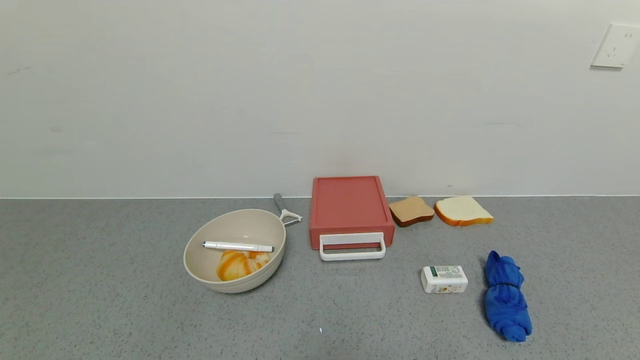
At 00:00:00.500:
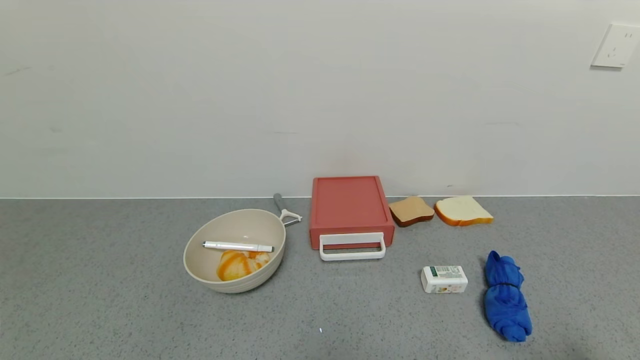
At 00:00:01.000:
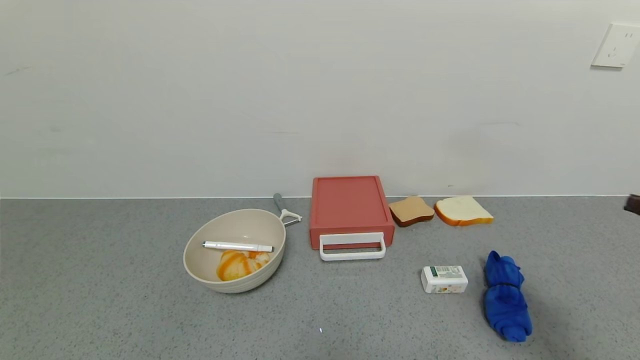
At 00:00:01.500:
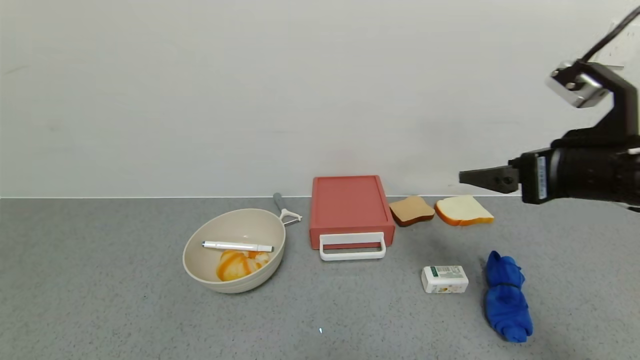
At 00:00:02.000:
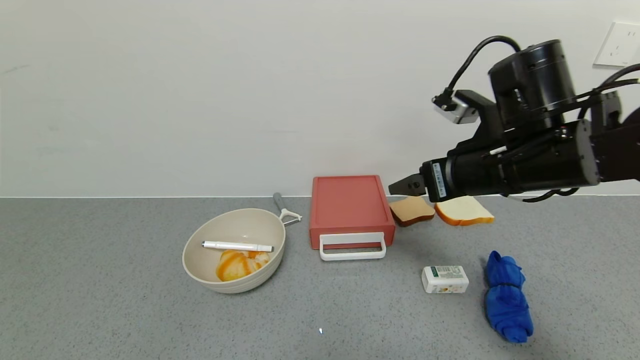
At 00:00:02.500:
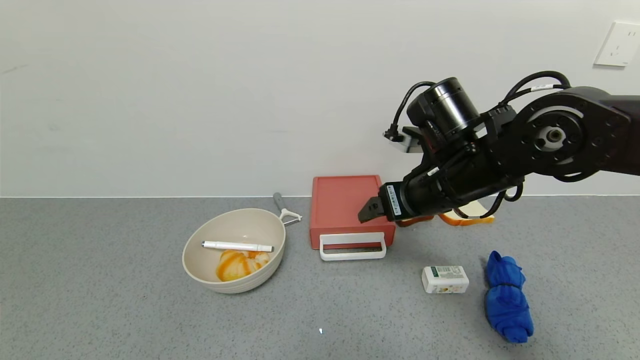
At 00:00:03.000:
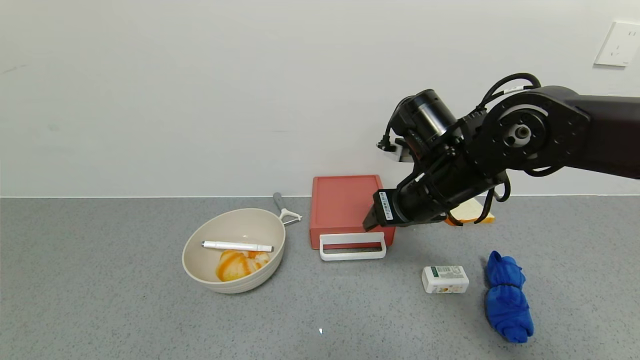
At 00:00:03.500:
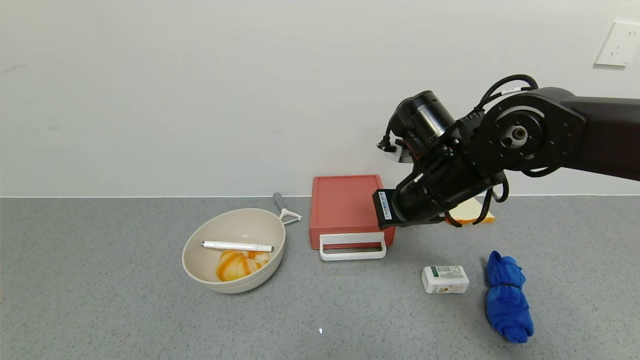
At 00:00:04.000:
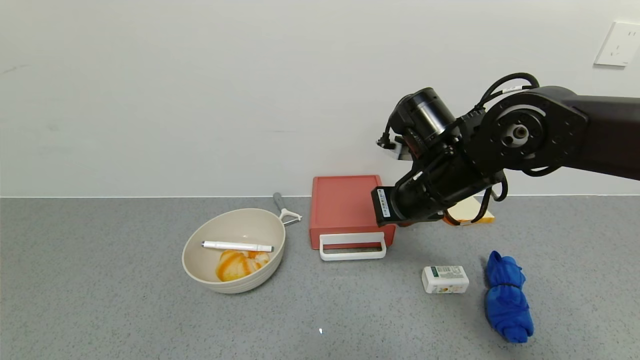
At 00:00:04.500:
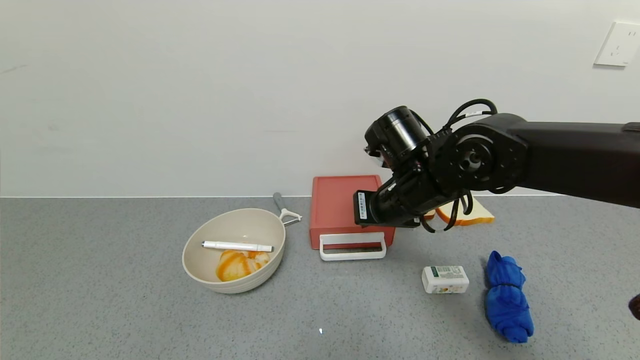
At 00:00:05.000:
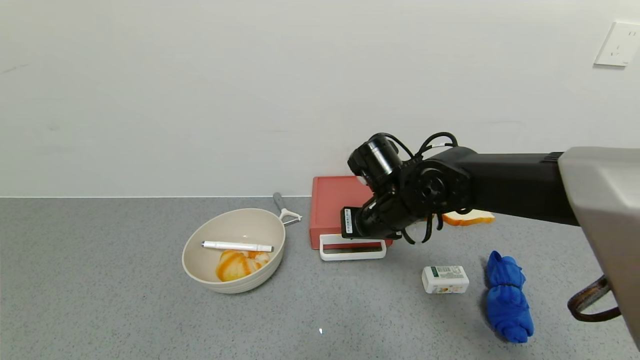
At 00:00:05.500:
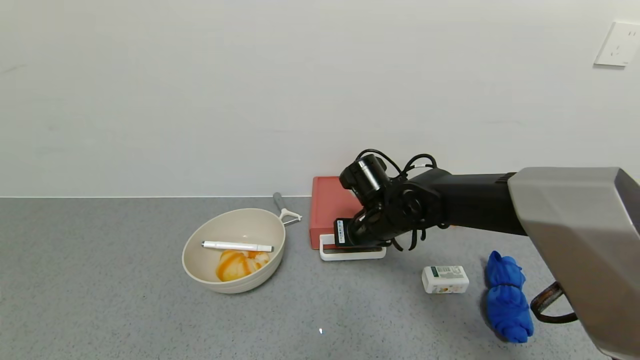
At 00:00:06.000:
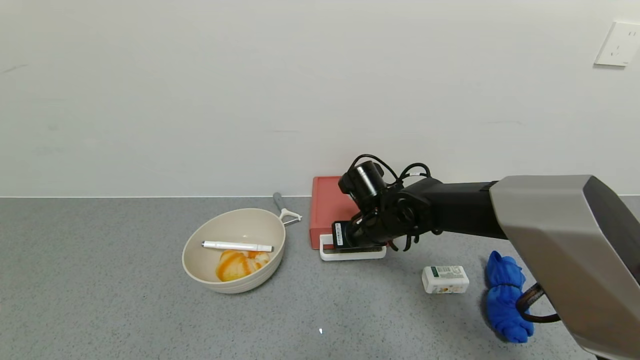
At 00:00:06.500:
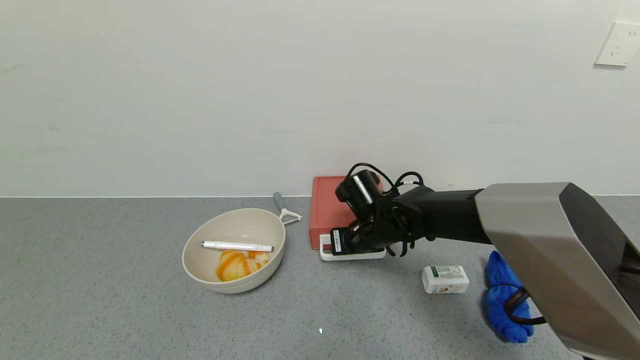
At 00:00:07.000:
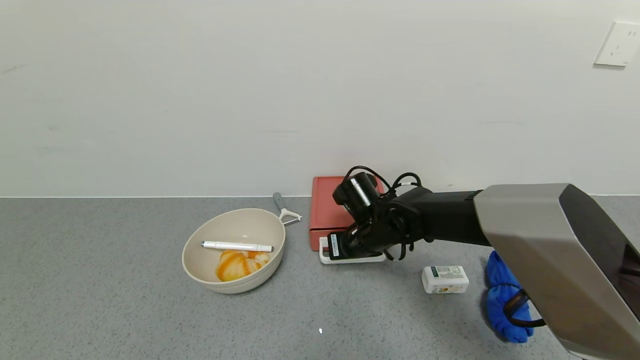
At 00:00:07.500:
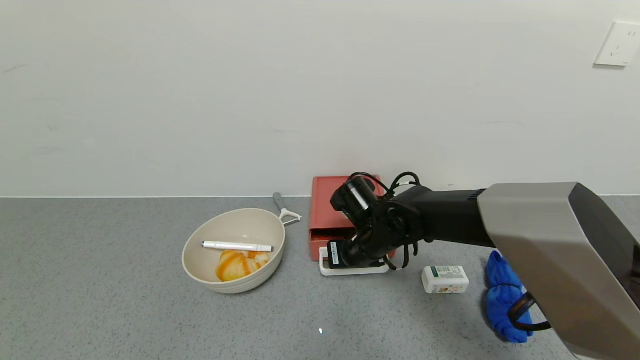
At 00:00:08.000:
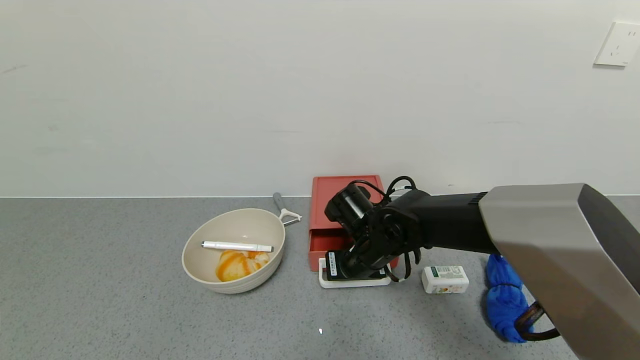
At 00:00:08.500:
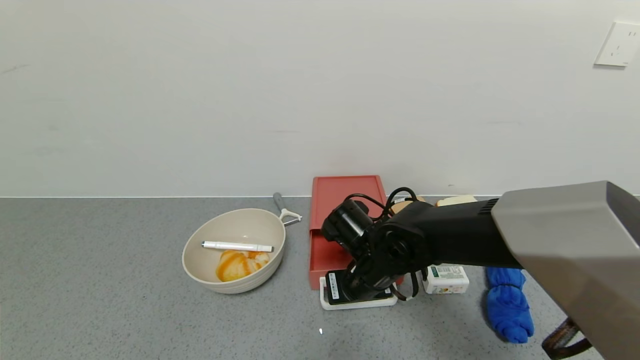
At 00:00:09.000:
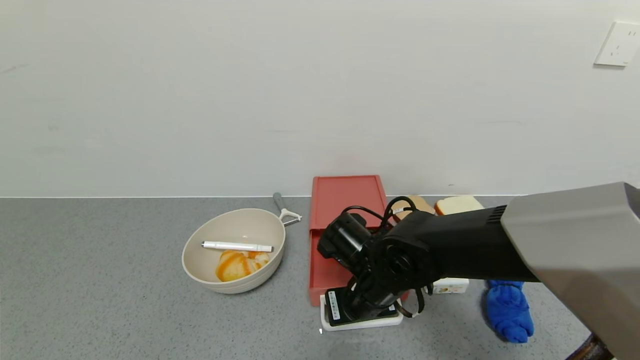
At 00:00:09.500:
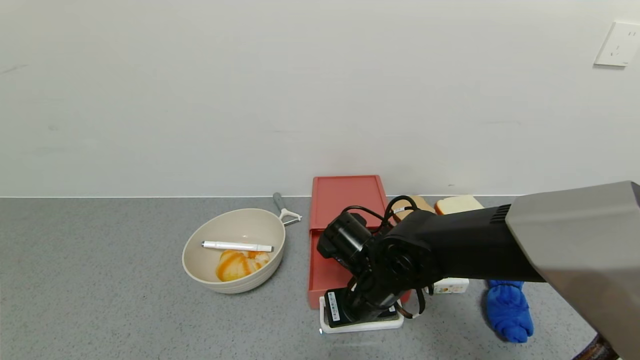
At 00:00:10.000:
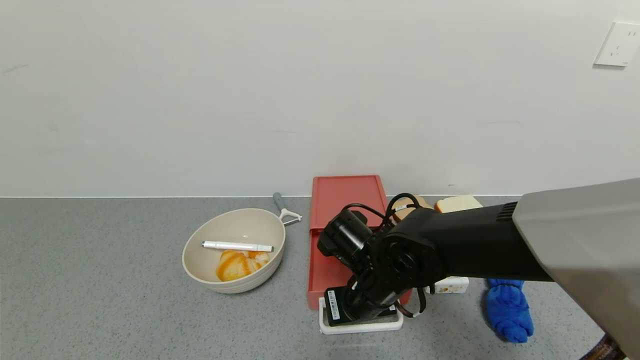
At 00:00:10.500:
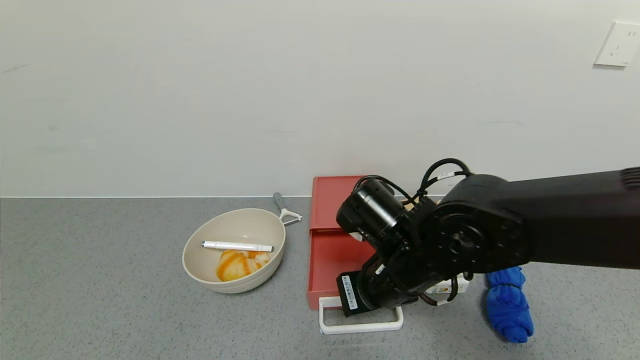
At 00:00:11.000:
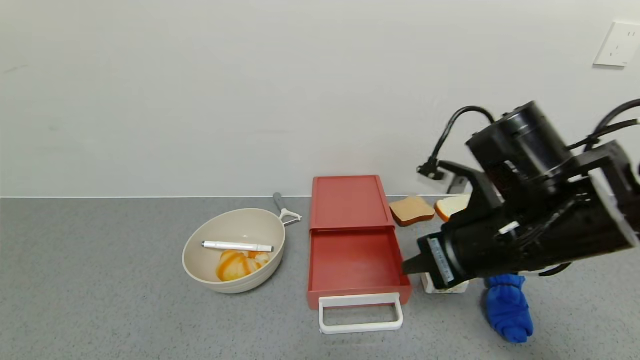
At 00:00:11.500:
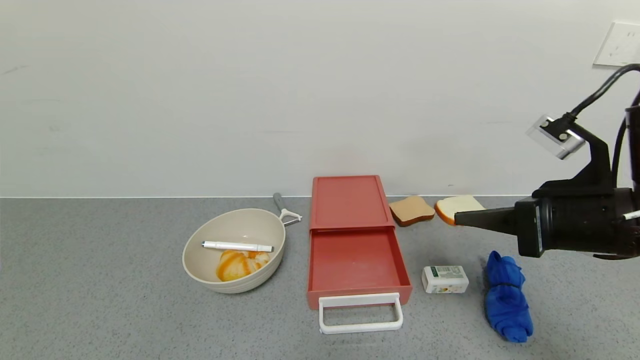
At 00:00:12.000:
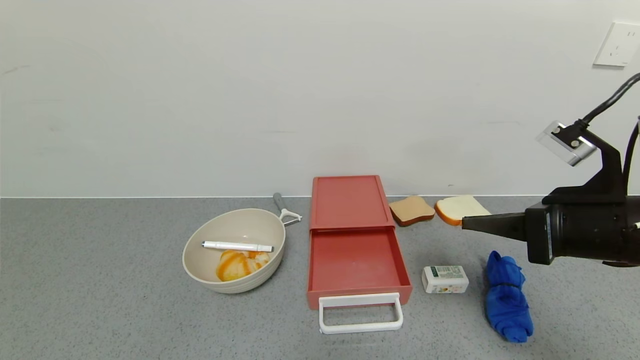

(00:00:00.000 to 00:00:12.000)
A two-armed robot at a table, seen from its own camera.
Task of the whole recording: use the gripper to open the drawer and close the red drawer.
Step, 00:00:00.000 - 00:00:11.500: Open the red drawer with right gripper.
00:00:00.000 - 00:00:02.000: The right gripper is displaced forward and to the left by about 25 cm.
00:00:02.000 - 00:00:04.000: The right gripper moves to the left, some 5 cm, and closes.
00:00:04.000 - 00:00:06.000: The right gripper travels downward, forward and to the left by roughly 15 cm.
00:00:06.000 - 00:00:08.000: The right gripper changes place by about 5 cm.
00:00:08.000 - 00:00:10.000: The right gripper goes some 5 cm backward.
00:00:10.000 - 00:00:12.000: The right gripper travels to the right and upward by some 25 cm.

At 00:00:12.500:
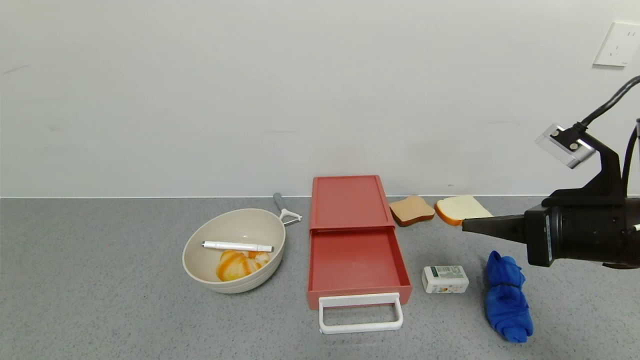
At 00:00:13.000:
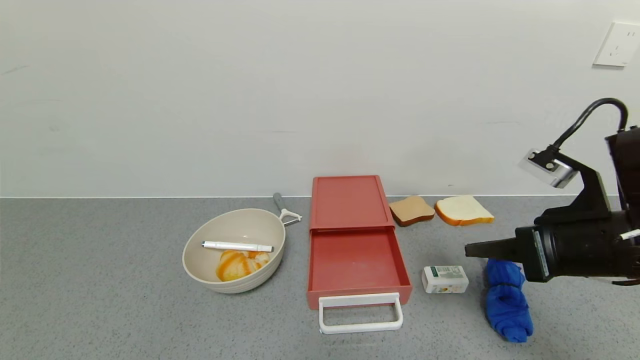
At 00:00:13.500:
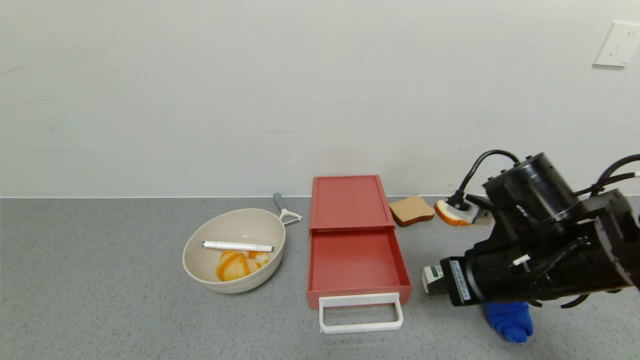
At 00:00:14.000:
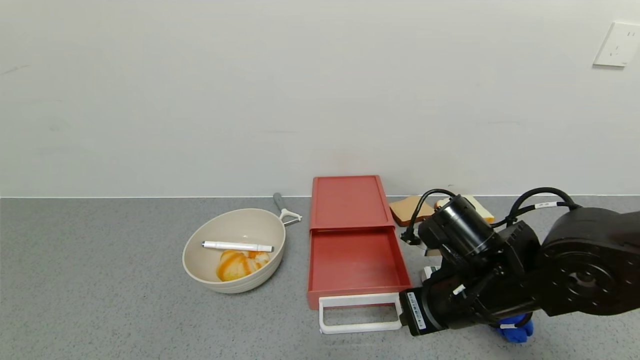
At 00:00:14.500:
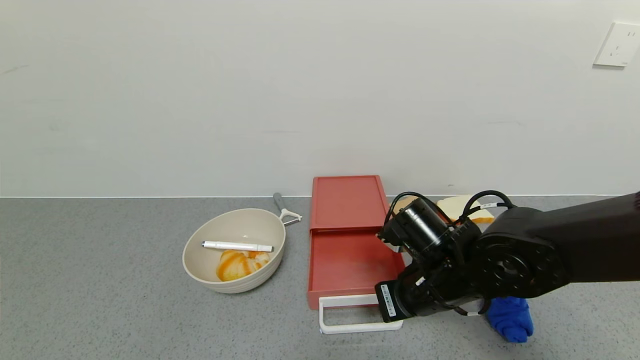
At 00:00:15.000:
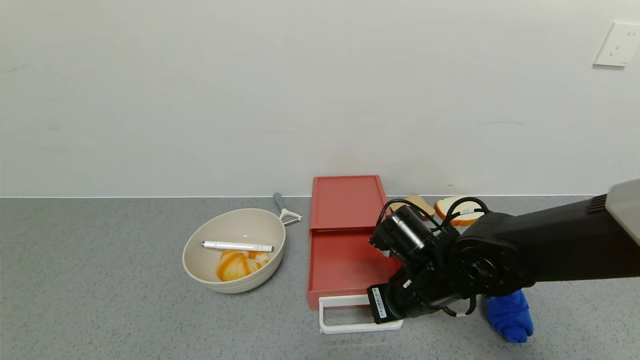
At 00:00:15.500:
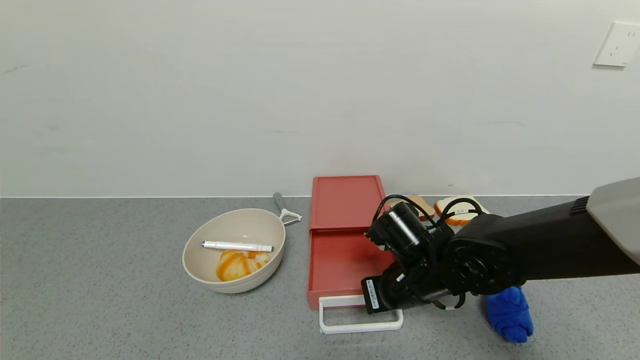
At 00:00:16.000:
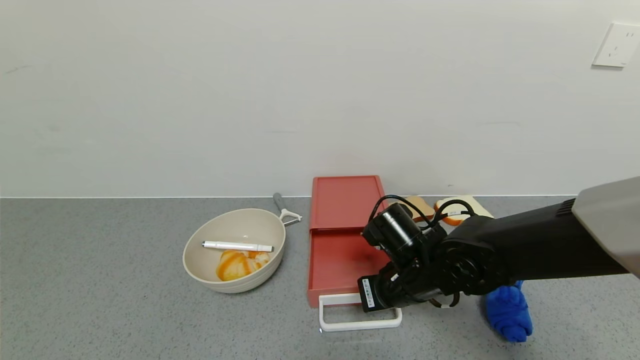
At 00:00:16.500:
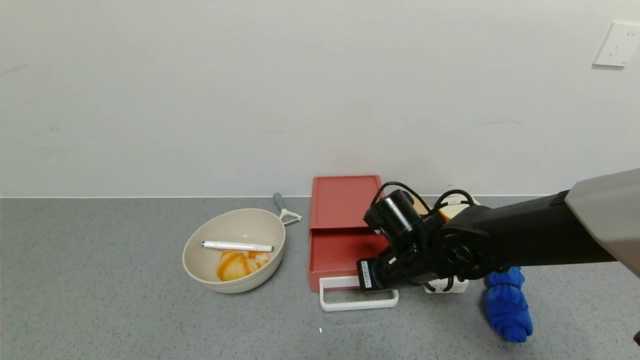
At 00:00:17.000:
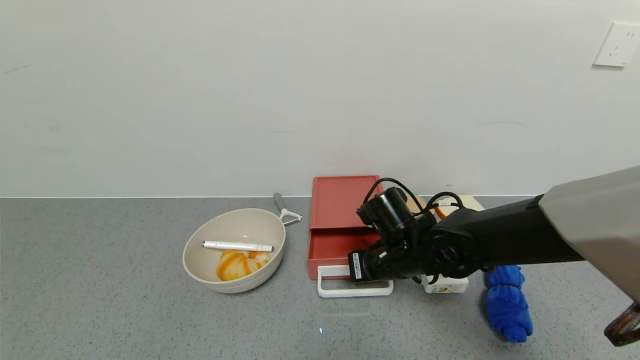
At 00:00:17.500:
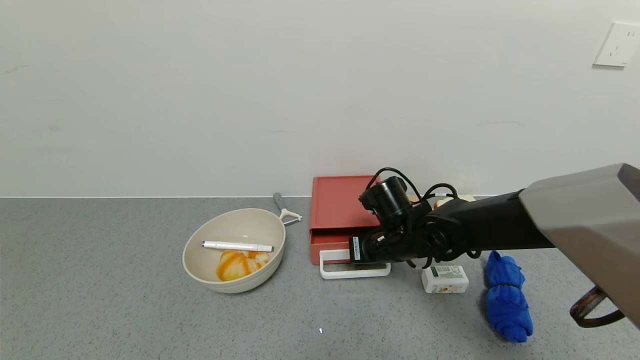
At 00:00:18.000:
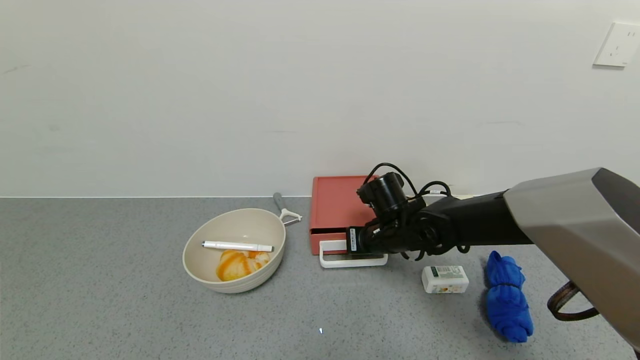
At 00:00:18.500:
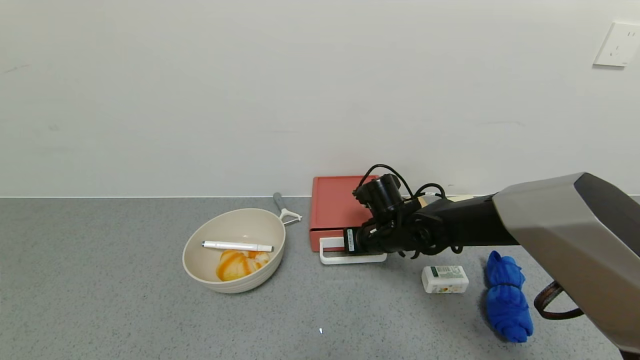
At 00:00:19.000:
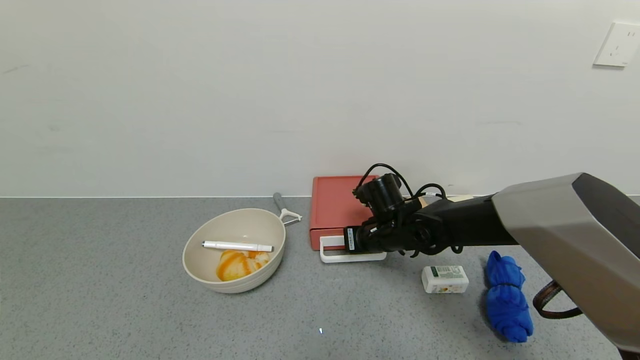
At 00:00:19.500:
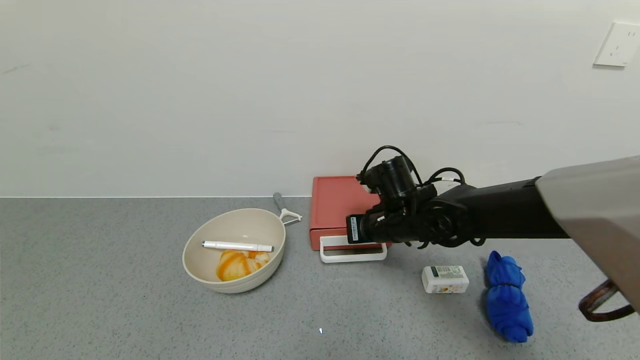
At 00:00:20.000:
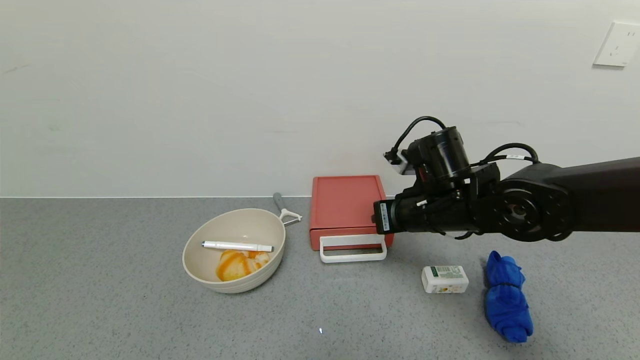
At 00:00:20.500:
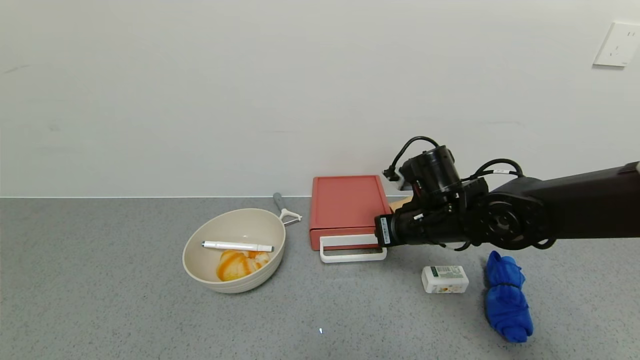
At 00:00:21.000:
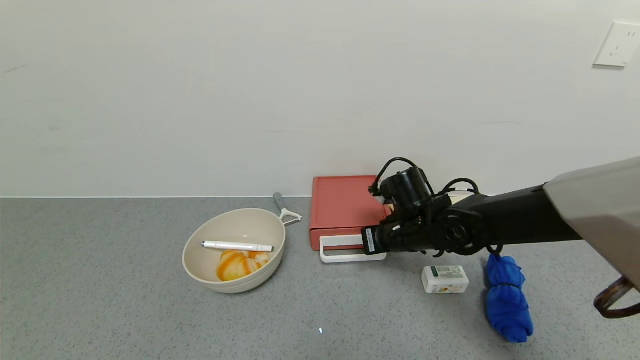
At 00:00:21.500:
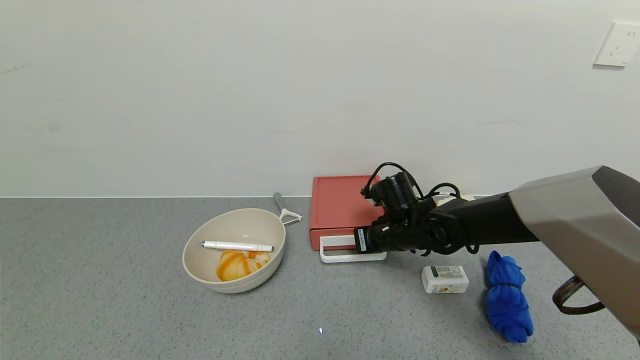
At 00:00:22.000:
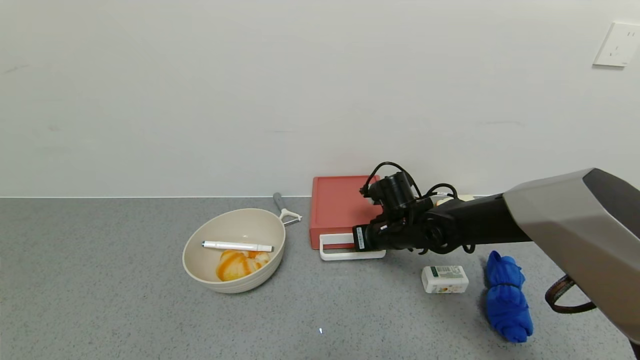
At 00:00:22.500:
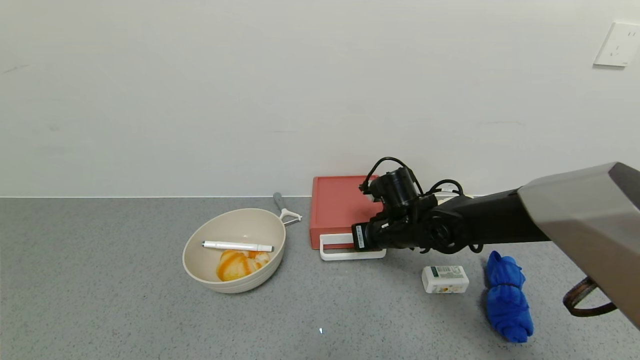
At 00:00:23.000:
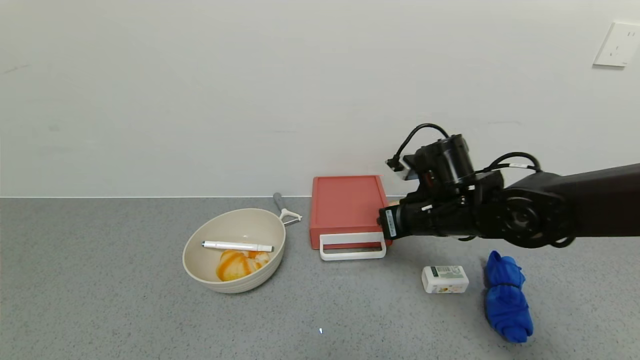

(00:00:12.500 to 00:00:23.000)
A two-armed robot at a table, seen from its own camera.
Task of the whole recording: use the gripper to open the drawer and close the red drawer.
00:00:12.500 - 00:00:14.500: The right gripper goes some 20 cm to the left and downward.
00:00:14.500 - 00:00:16.500: The right gripper shifts by about 5 cm.
00:00:16.500 - 00:00:19.000: The right gripper shifts some 10 cm forward.
00:00:19.000 - 00:00:21.000: The right gripper reaches some 10 cm upward, then returns.
00:00:21.000 - 00:00:23.000: The right gripper shifts about 5 cm upward.
